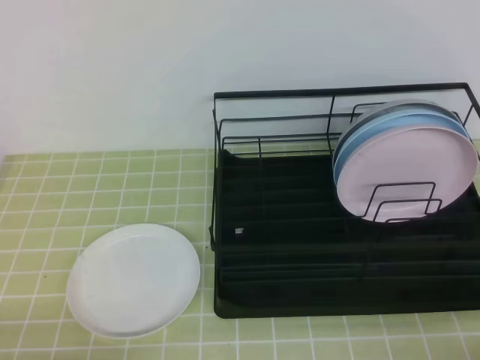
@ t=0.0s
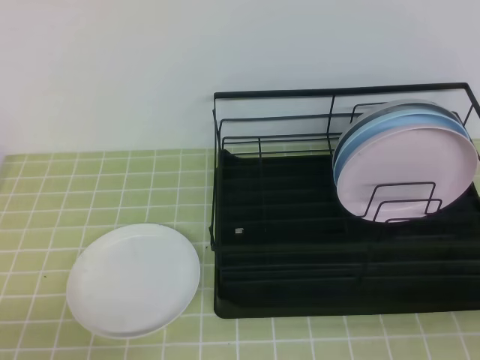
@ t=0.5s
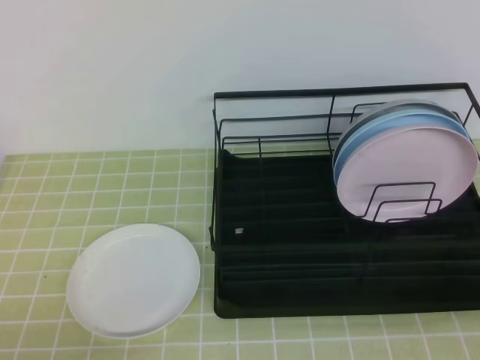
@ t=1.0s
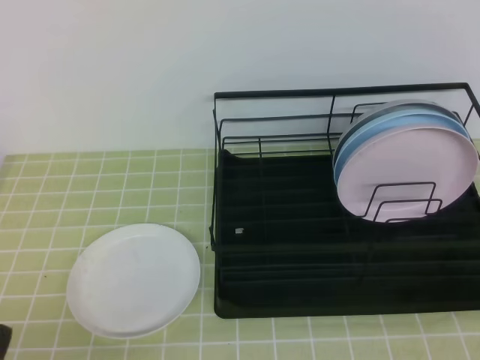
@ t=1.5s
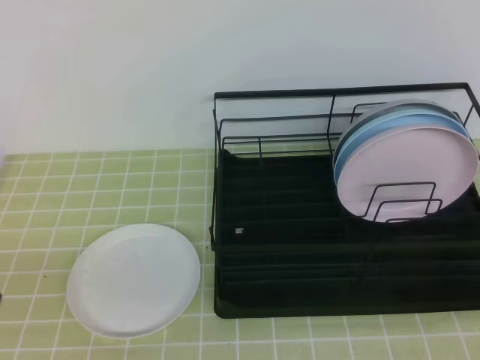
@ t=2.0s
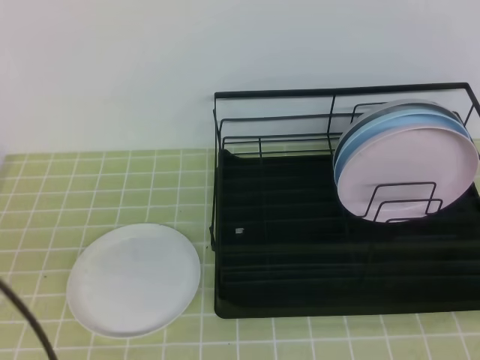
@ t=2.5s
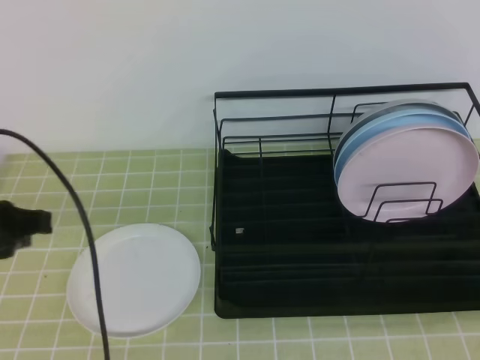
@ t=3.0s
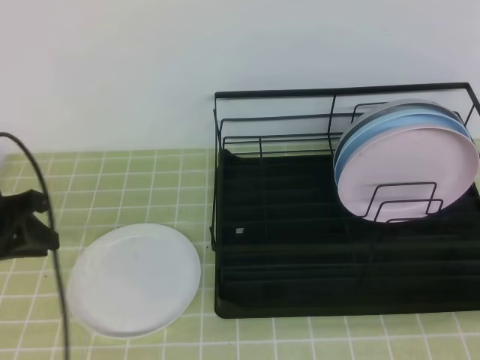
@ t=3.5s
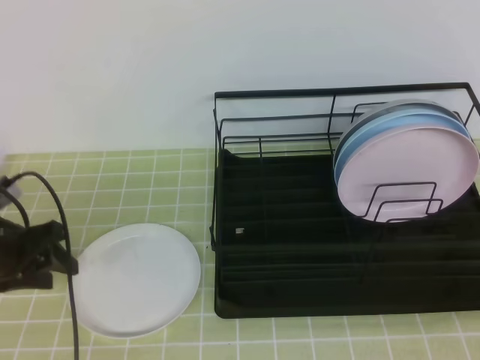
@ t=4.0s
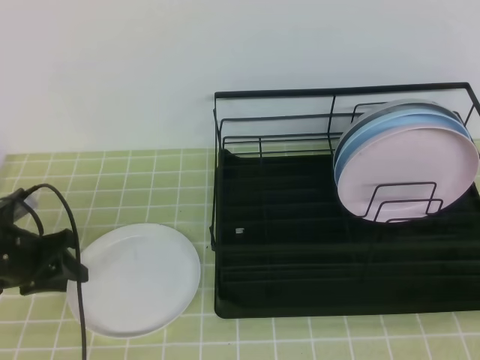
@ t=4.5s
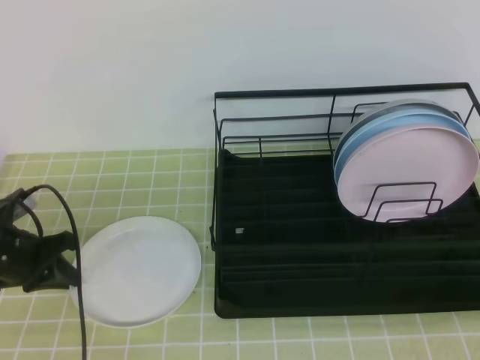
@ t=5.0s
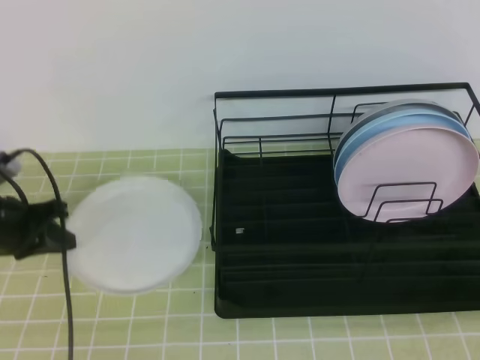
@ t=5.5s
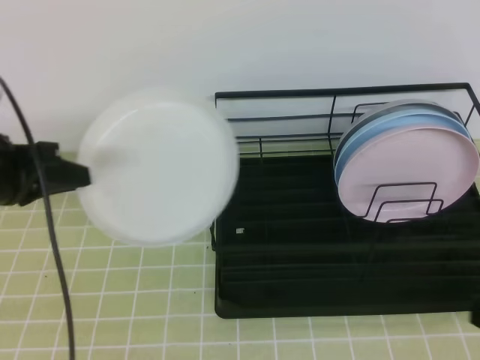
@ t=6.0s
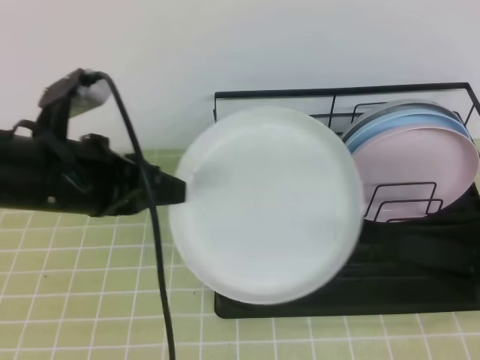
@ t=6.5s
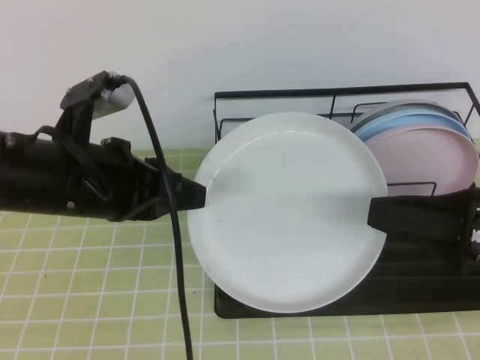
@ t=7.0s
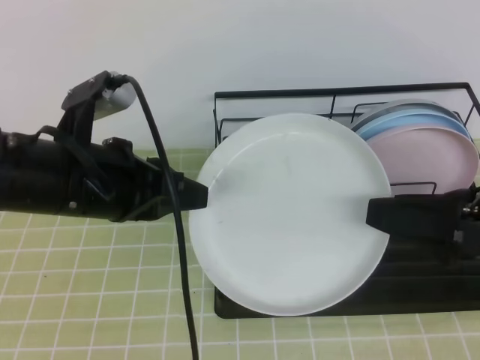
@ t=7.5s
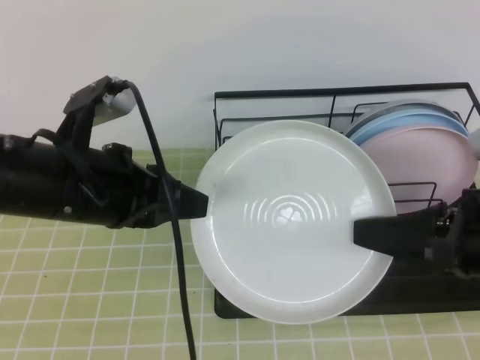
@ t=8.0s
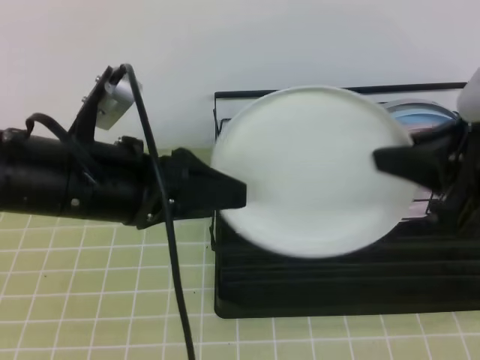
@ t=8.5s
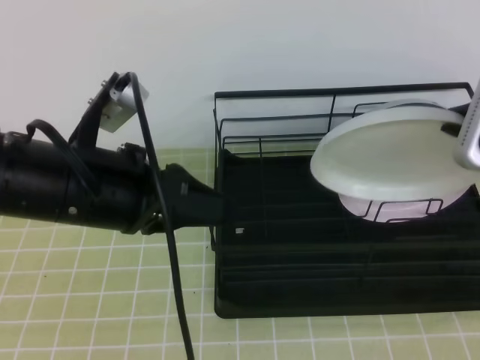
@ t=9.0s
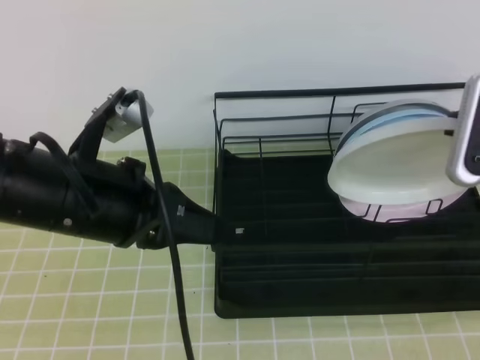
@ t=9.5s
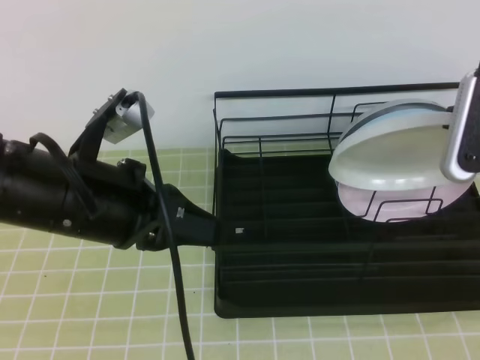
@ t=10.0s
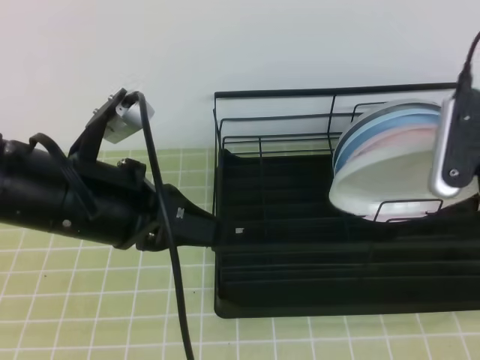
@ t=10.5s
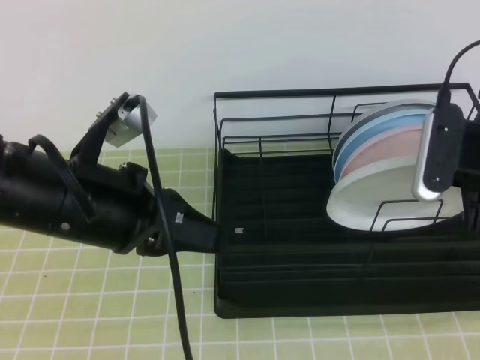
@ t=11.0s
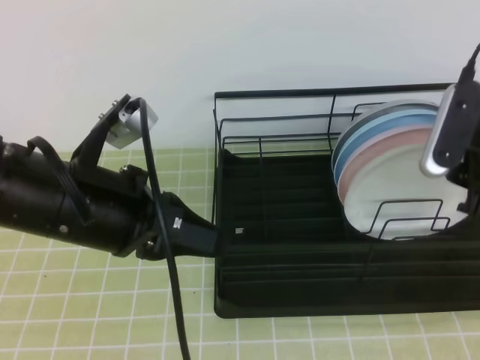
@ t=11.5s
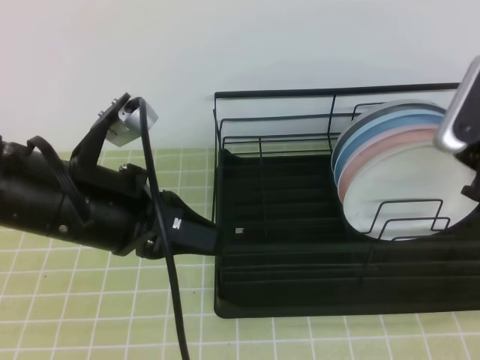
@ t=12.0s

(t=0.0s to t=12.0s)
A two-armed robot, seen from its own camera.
t=2.0s - t=4.0s: The left gripper travels forward by roughly 25 cm, and opens its fingers.
t=4.0s - t=6.0s: The left gripper is displaced upward and to the right by roughly 10 cm, and closes up.
t=6.0s - t=8.0s: The right gripper moves forward, some 10 cm, and opens, then closes again. The left gripper heads to the right and backward, covering some 15 cm.
t=8.0s - t=10.0s: The right gripper moves forward, approximately 5 cm, while the left gripper opens, then closes once more.
t=10.0s - t=12.0s: The right gripper opens up.

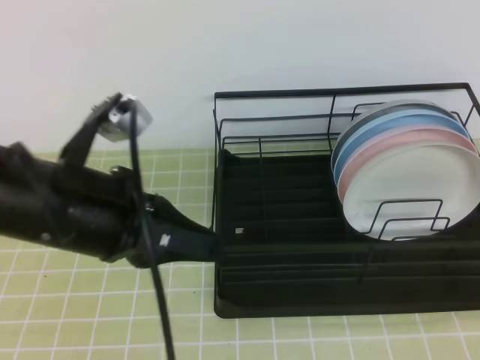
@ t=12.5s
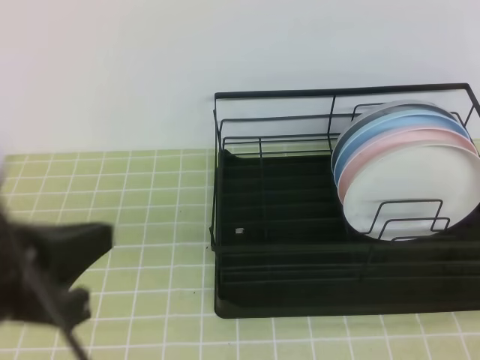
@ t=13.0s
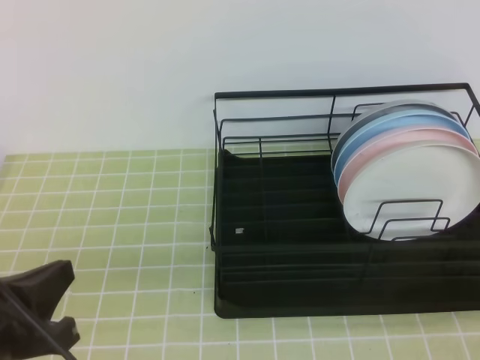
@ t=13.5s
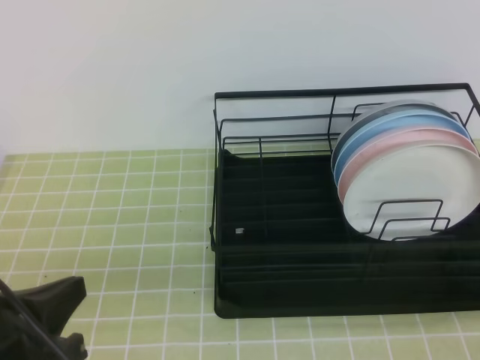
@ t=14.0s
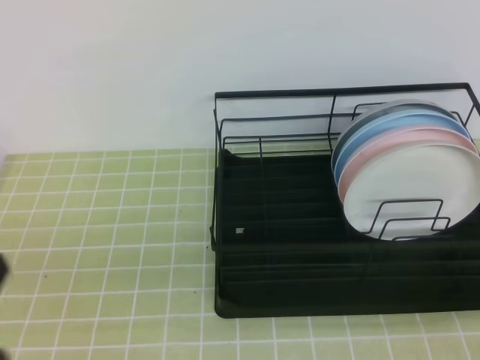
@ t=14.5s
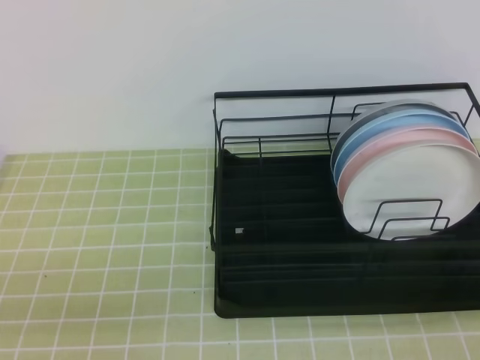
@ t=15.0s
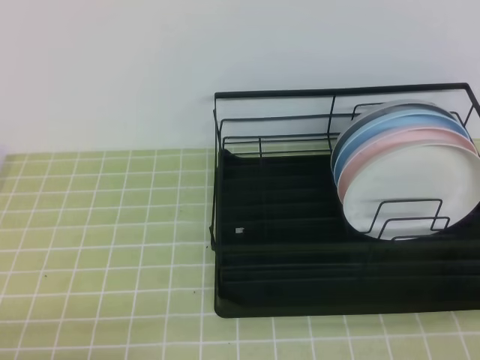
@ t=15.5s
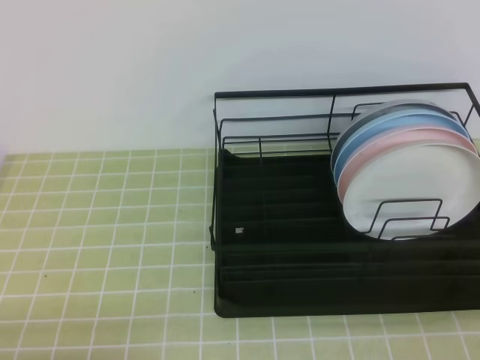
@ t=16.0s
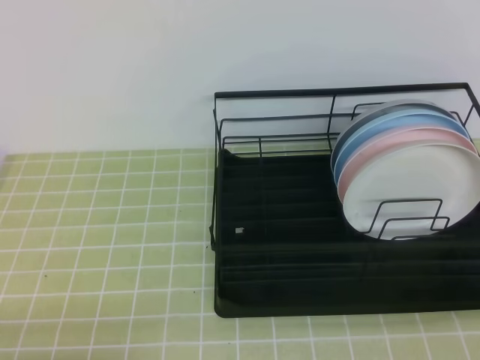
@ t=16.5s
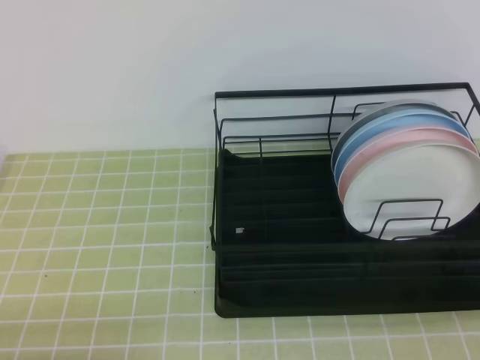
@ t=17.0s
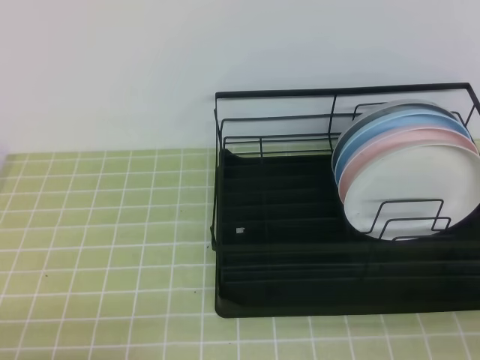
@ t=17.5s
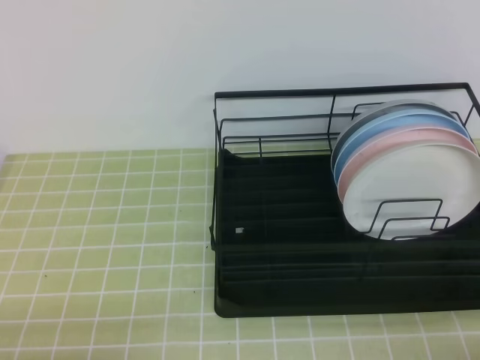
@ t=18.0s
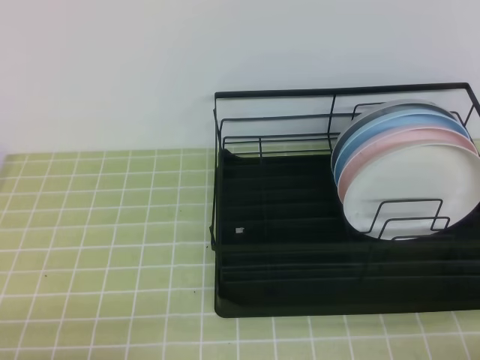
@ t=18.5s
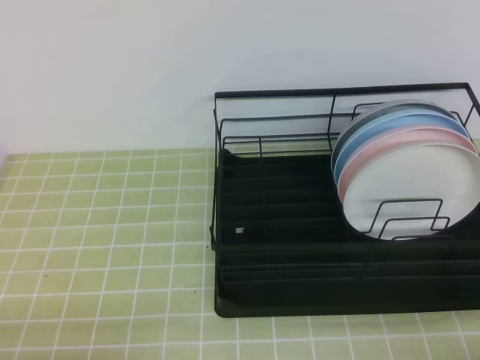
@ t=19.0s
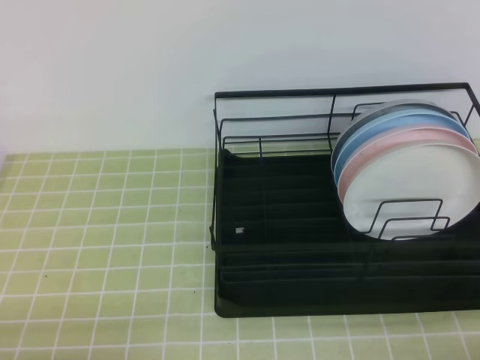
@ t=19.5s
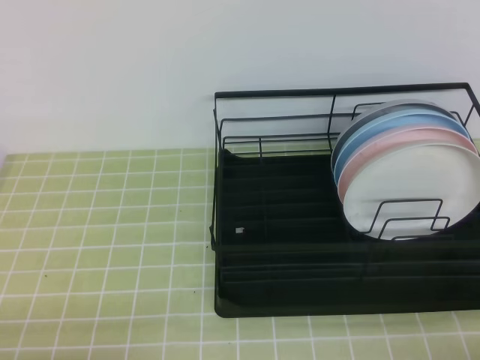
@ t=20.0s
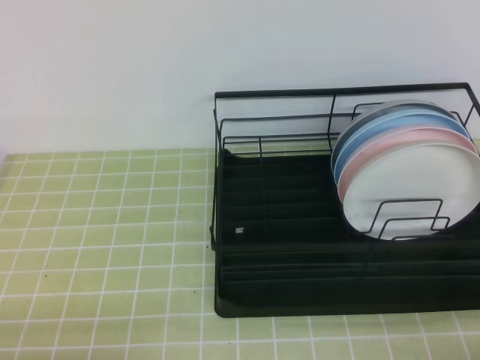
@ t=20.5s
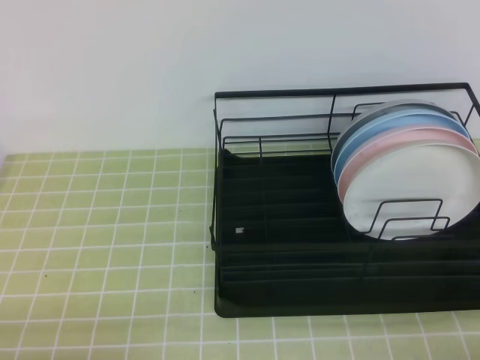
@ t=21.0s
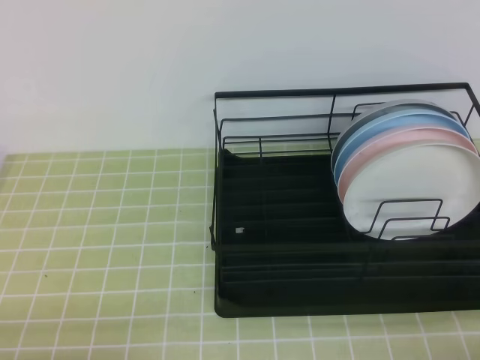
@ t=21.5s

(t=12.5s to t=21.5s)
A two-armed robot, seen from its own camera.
t=12.5s - t=14.5s: The left gripper heads backward, to the left and downward, covering about 15 cm. Meanwhile the right gripper moves backward and downward, about 20 cm.
t=19.5s - t=21.5s: The two grippers keep their place.
